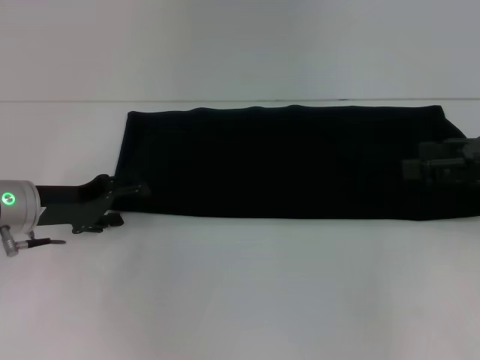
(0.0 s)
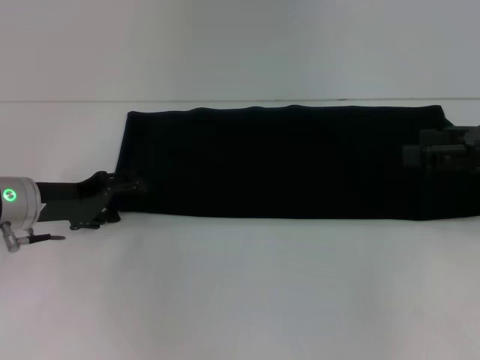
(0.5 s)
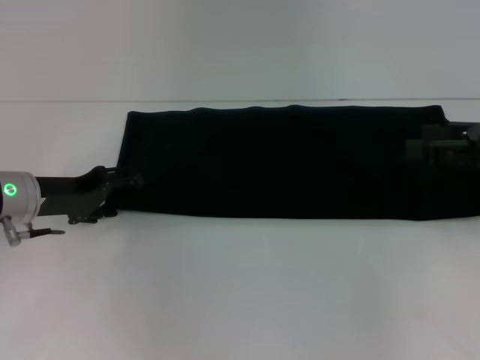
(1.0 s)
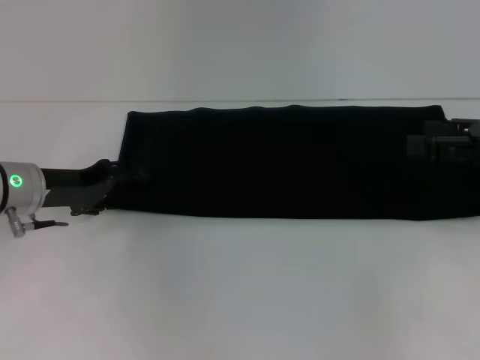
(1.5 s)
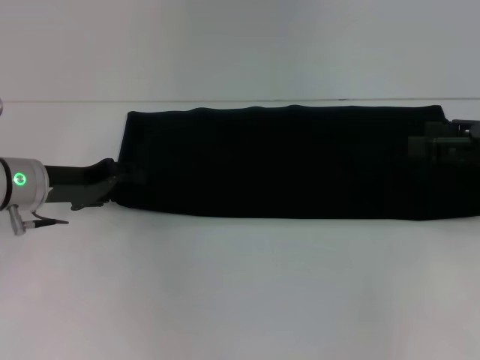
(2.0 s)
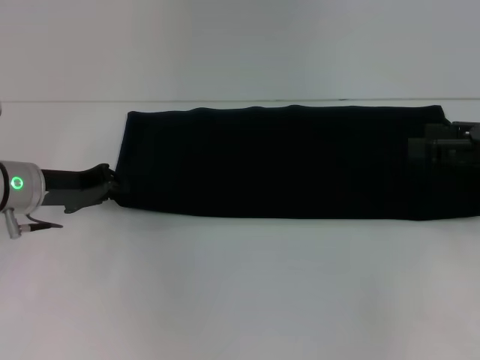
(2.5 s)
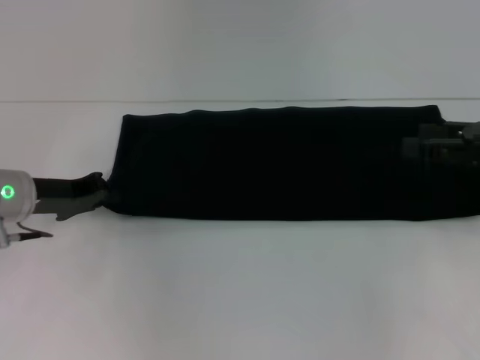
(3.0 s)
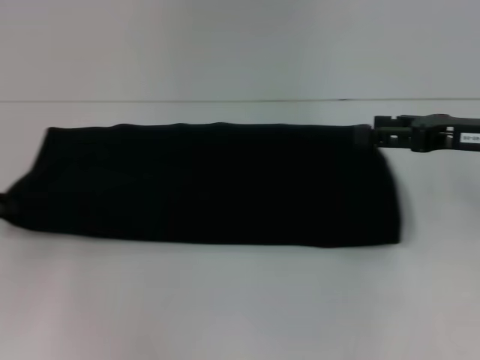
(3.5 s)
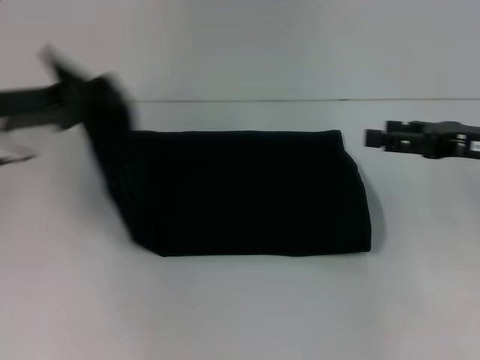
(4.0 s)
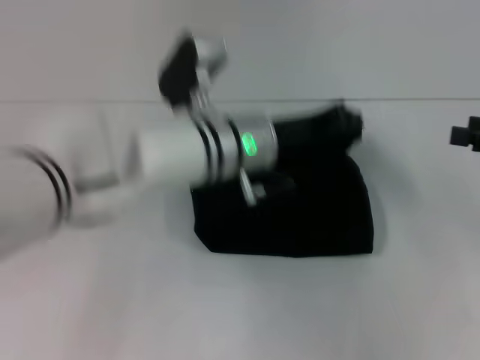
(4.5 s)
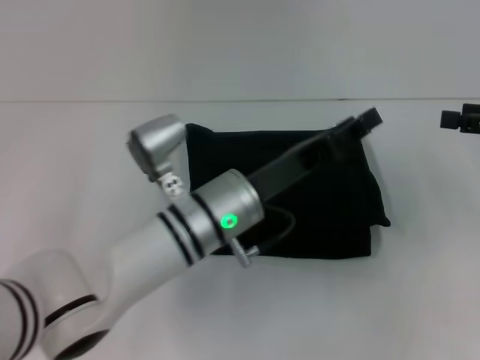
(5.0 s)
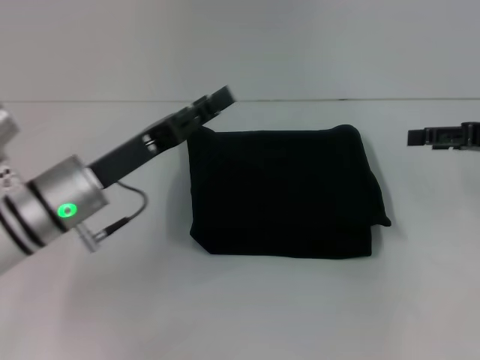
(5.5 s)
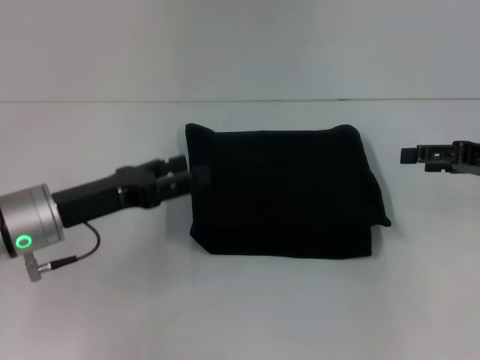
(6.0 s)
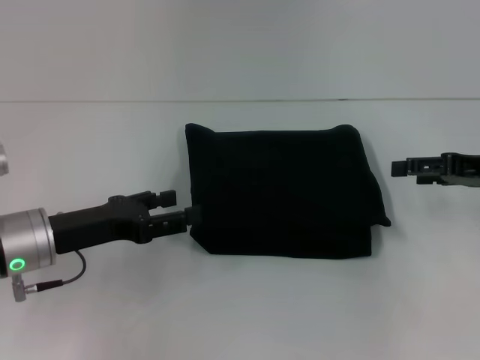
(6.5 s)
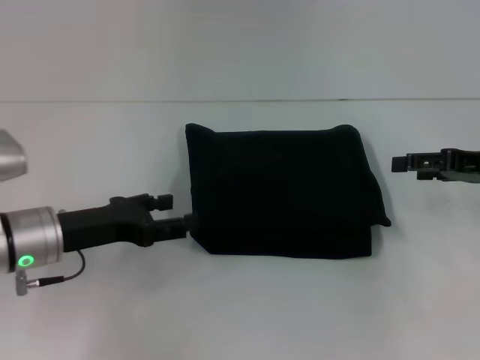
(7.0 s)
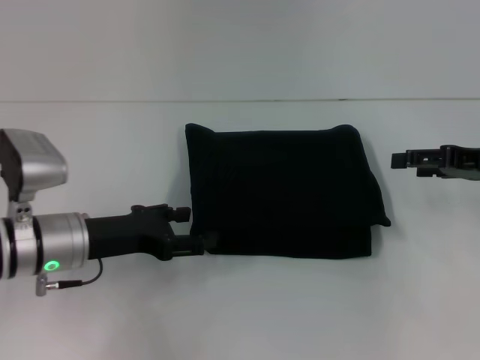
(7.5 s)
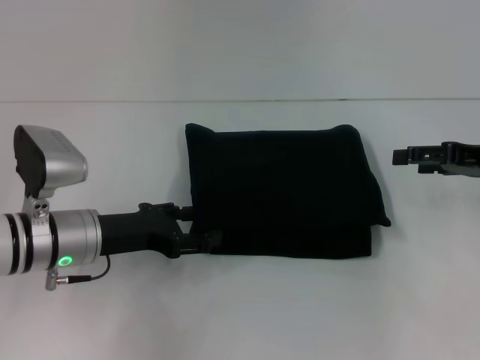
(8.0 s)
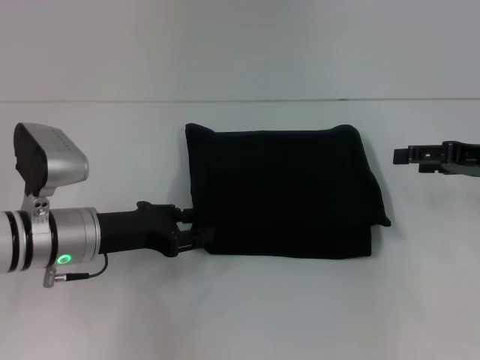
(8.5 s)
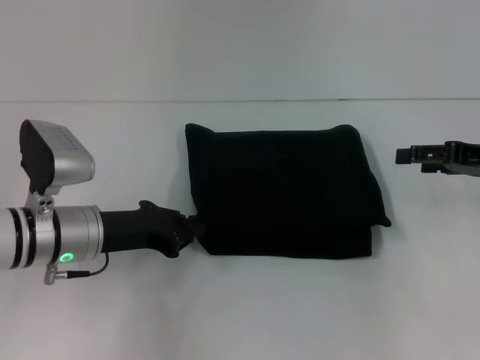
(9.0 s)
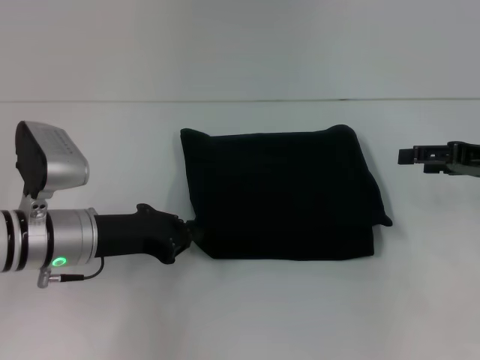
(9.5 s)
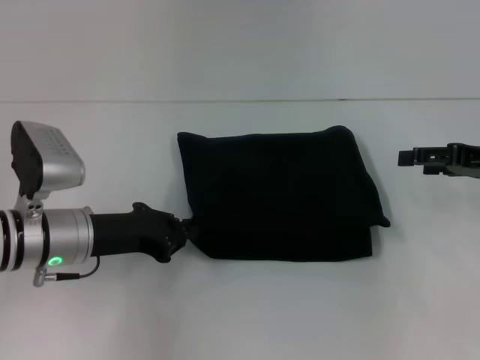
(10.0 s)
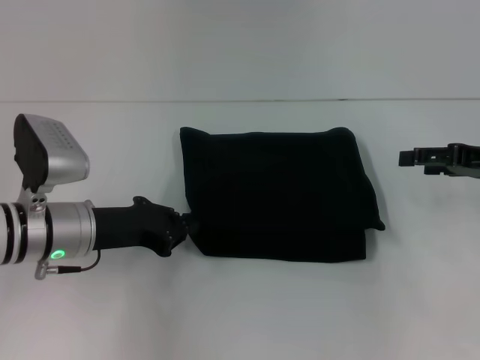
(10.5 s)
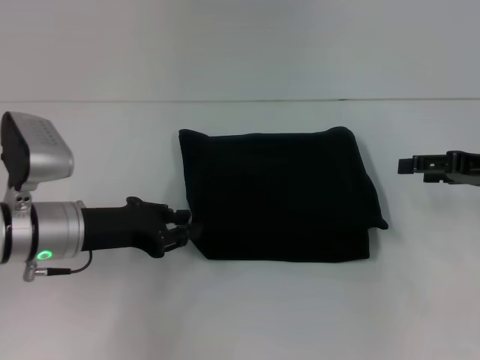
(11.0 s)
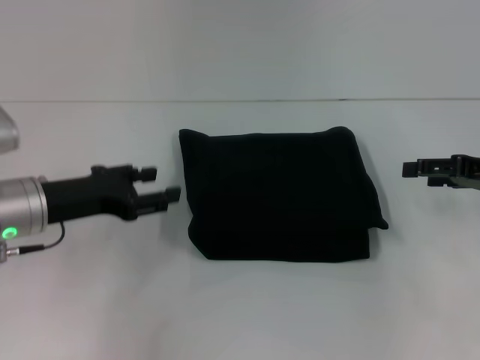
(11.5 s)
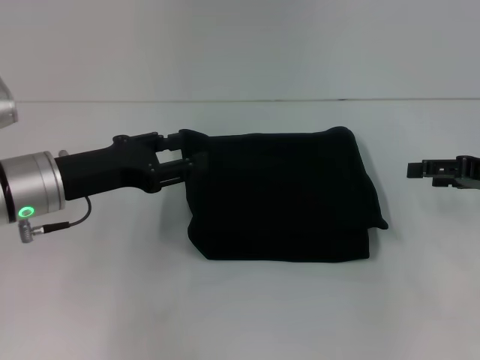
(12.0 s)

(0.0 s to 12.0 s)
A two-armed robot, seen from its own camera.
Step, 0.0 s - 5.0 s: Fold the clothes with your left hand.
0.0 s - 2.0 s: The grippers make only small movements.
2.0 s - 4.0 s: The left gripper travels upward by about 10 cm, moves some 10 cm to the left and comes back, and closes.
4.0 s - 6.0 s: The left gripper shifts some 10 cm downward and backward, moves some 25 cm to the right and comes back, and opens up.
8.0 s - 10.0 s: The left gripper closes.
10.0 s - 12.0 s: The left gripper heads upward, covering some 5 cm, and opens.

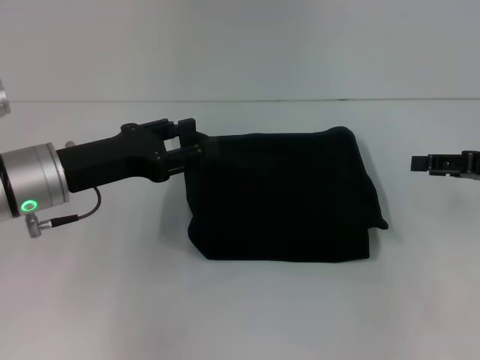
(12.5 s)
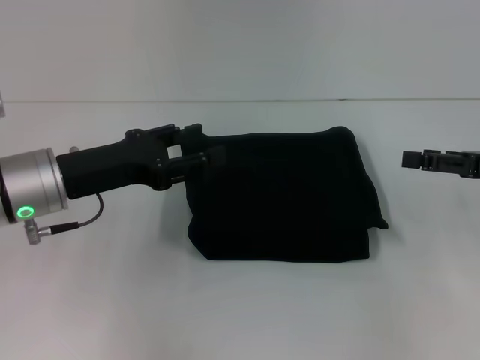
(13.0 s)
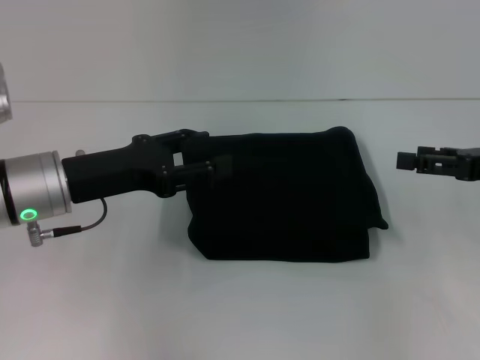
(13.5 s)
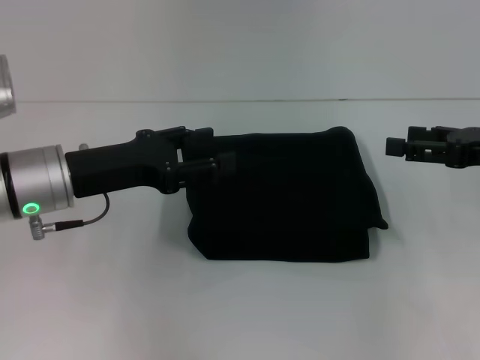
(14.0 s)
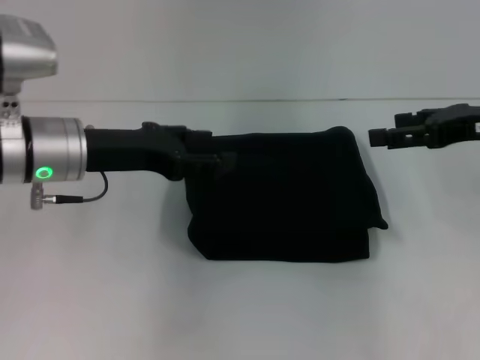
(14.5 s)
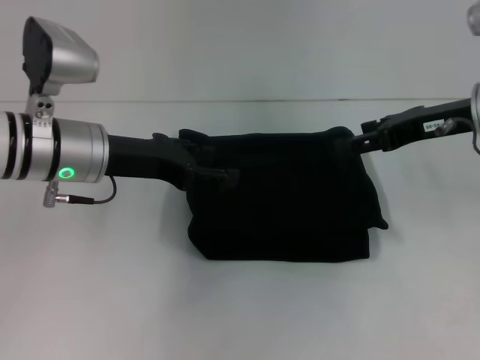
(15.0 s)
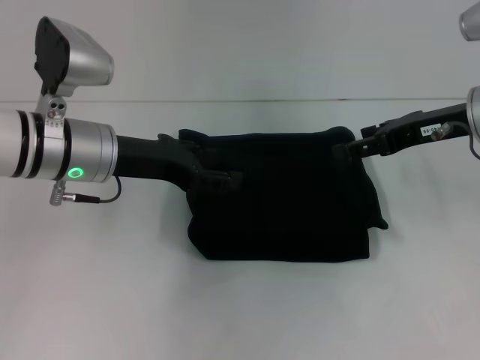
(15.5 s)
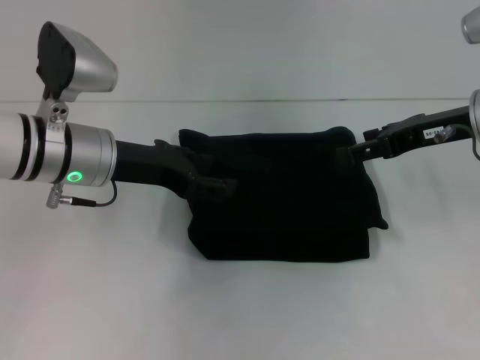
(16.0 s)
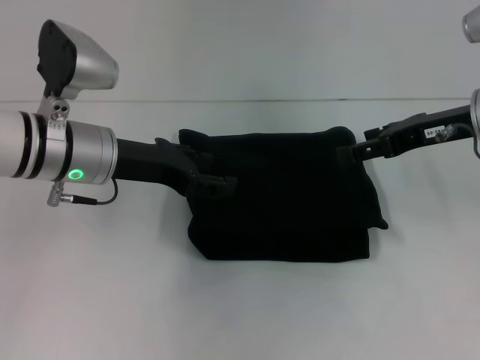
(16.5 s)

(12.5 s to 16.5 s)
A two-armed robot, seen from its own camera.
12.5 s - 14.5 s: The right gripper shifts roughly 10 cm upward and to the left.
14.5 s - 16.5 s: The right gripper shifts by approximately 5 cm.
